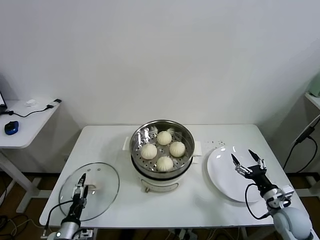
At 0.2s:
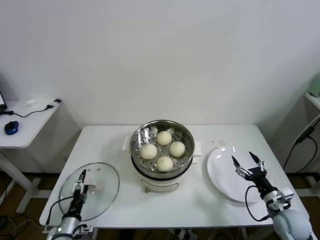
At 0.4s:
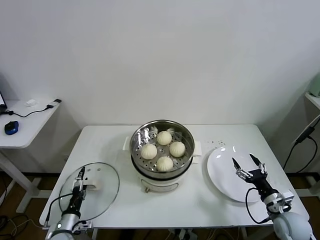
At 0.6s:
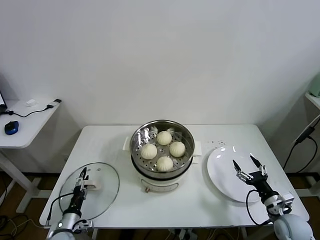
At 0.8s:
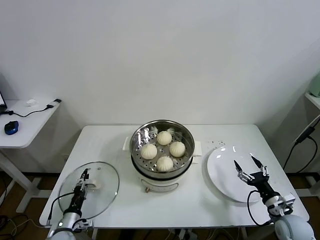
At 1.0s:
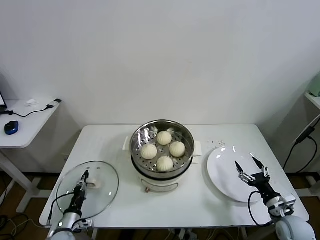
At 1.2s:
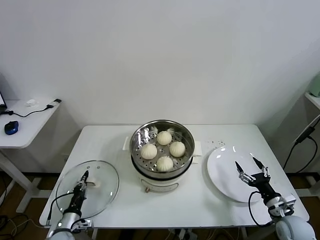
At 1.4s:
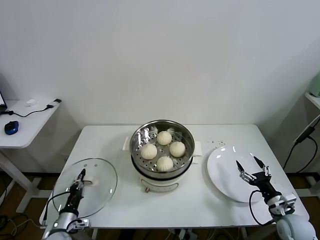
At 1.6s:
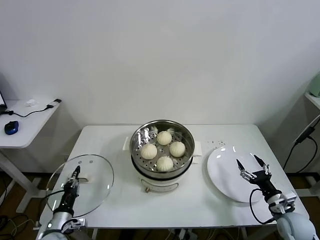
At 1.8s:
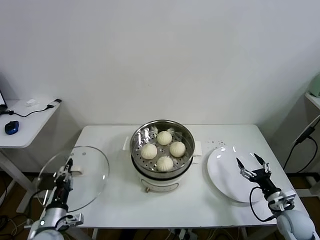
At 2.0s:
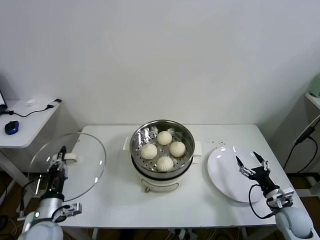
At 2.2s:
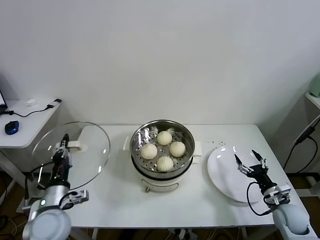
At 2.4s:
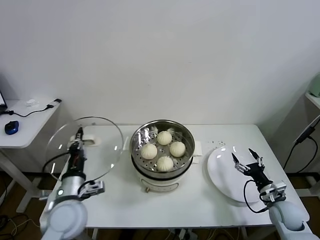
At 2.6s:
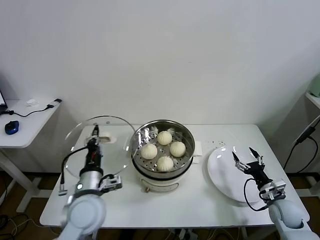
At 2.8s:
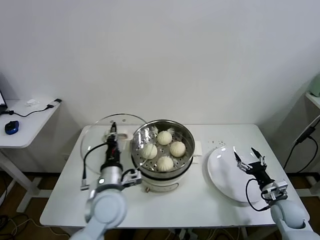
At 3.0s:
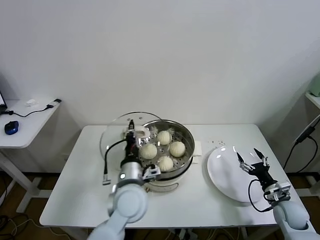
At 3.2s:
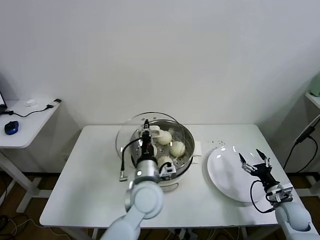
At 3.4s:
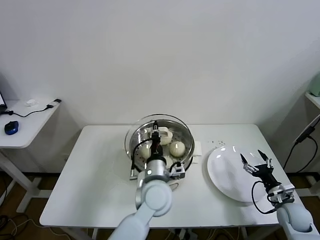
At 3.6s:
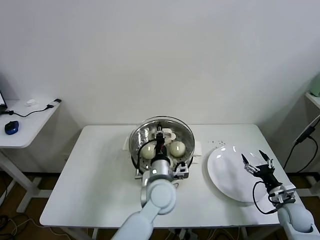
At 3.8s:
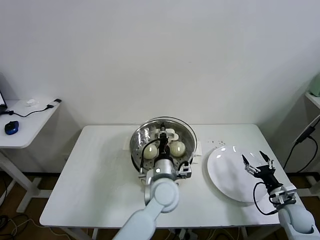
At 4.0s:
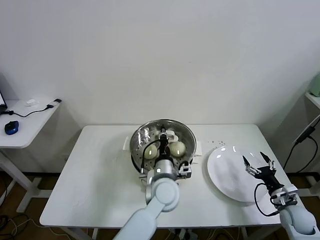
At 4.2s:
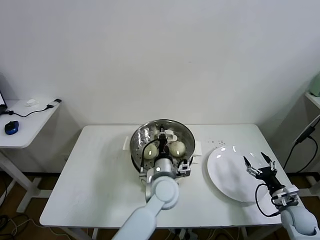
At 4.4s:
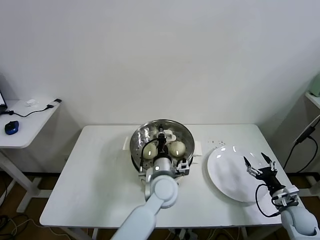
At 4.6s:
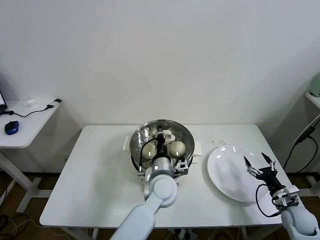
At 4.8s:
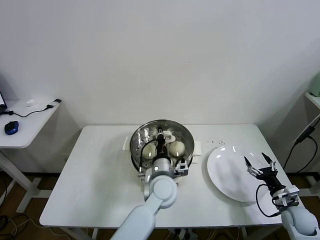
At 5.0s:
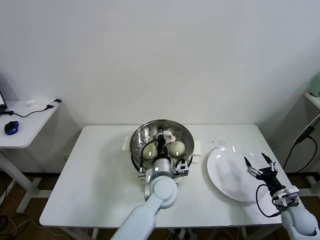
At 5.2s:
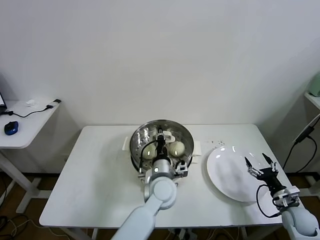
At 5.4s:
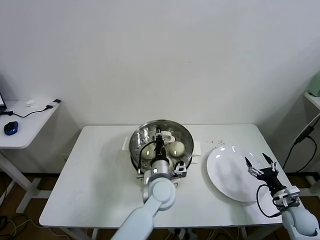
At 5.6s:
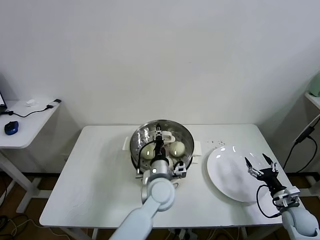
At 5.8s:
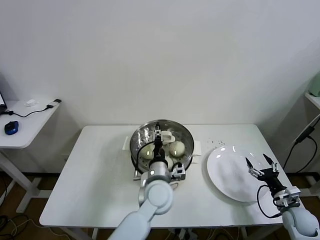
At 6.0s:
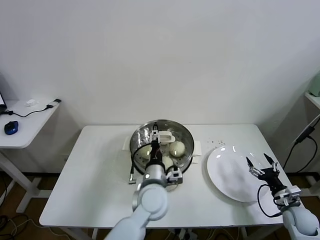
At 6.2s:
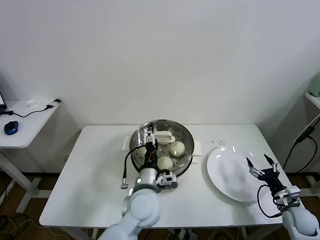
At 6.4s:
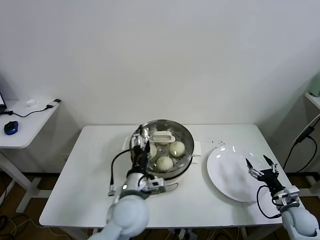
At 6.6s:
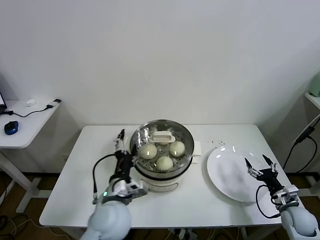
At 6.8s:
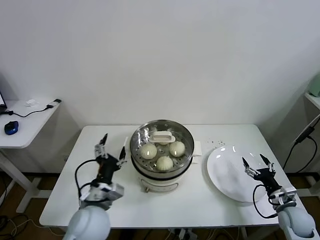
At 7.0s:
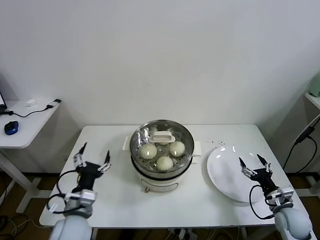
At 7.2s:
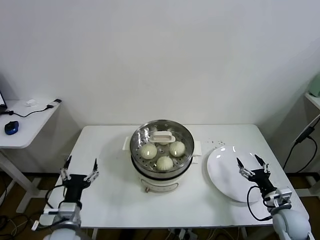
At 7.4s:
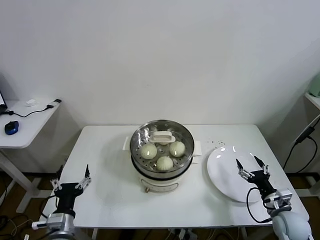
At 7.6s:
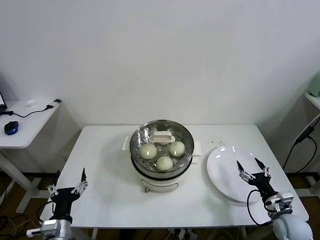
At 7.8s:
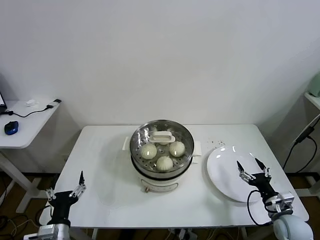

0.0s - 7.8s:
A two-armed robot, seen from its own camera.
Task of the whole recording: take steamed baozi put them in steamer.
Step, 1.2s - 6.0s: Place the pot lid on the steamer with left gripper.
0.0s - 1.6s: The left gripper closes up.
1.6s - 3.2s: The left gripper heads to the right and upward, covering roughly 35 cm.
3.2s - 4.6s: The left gripper travels to the right by about 5 cm.
4.6s - 6.2s: The left gripper goes approximately 5 cm backward, and opens.
6.2s - 7.8s: The right gripper moves to the left, roughly 5 cm; the left gripper travels to the left and backward by about 30 cm.

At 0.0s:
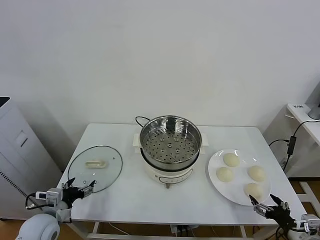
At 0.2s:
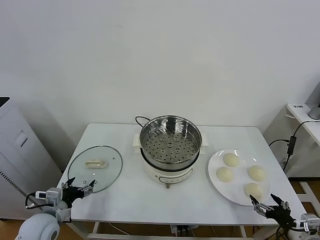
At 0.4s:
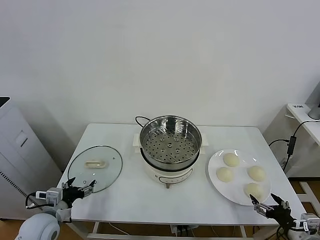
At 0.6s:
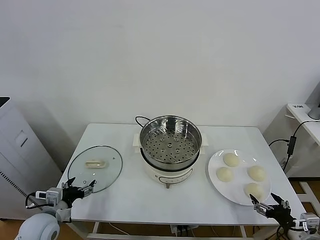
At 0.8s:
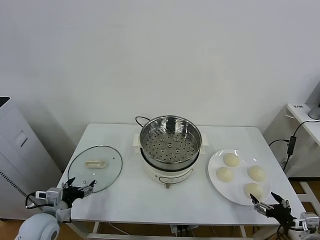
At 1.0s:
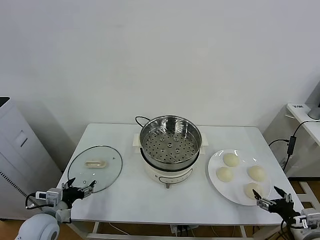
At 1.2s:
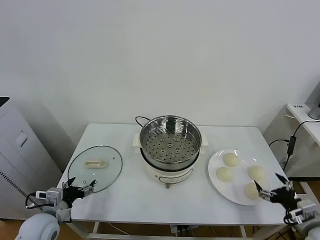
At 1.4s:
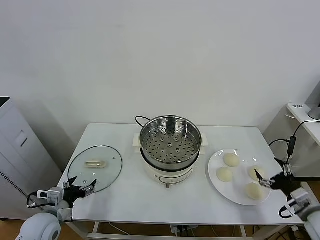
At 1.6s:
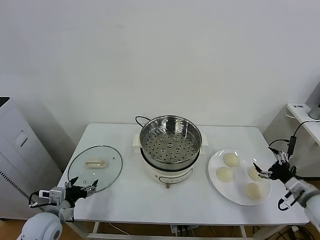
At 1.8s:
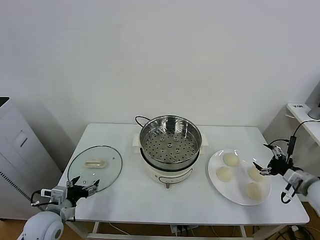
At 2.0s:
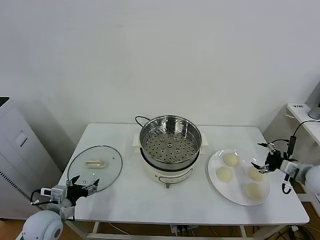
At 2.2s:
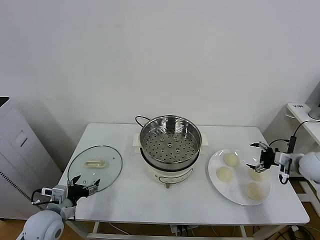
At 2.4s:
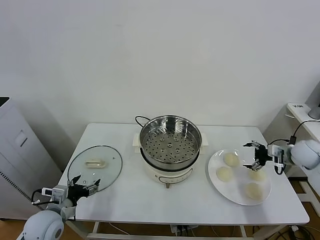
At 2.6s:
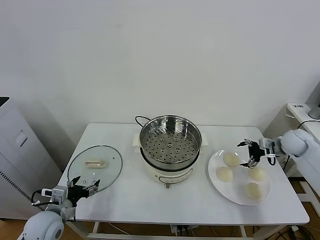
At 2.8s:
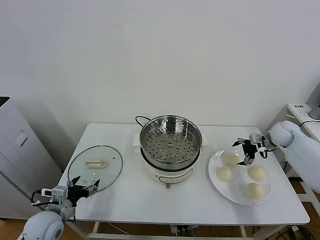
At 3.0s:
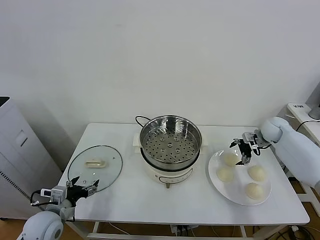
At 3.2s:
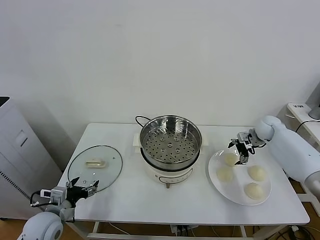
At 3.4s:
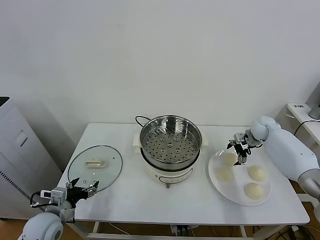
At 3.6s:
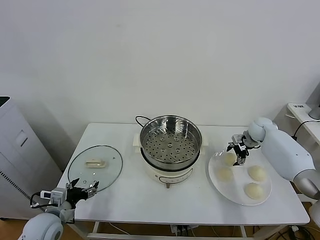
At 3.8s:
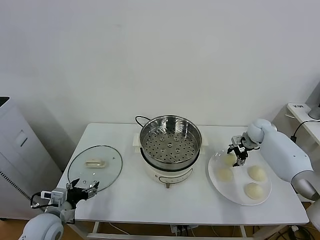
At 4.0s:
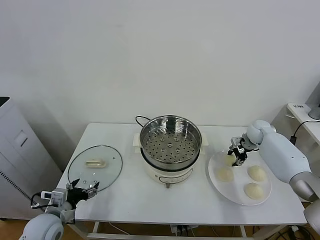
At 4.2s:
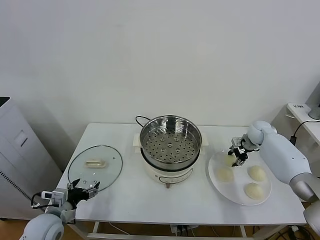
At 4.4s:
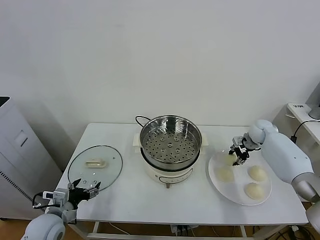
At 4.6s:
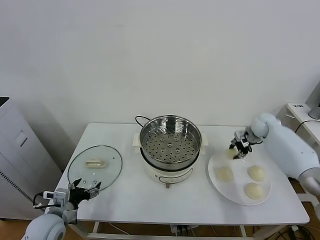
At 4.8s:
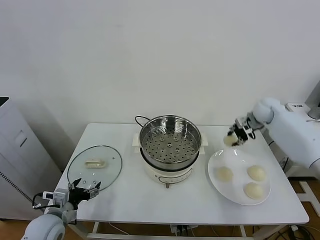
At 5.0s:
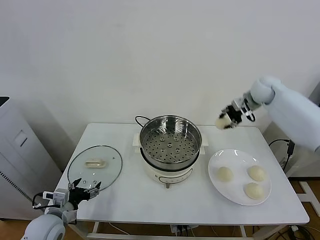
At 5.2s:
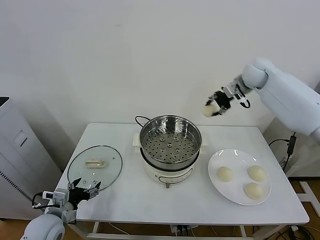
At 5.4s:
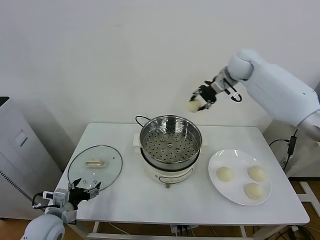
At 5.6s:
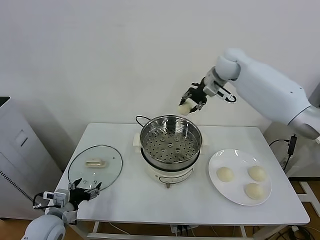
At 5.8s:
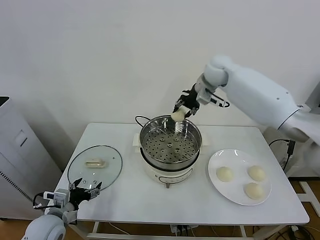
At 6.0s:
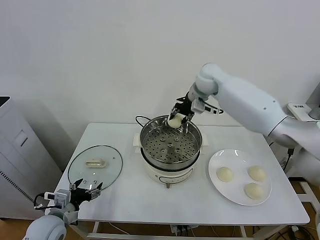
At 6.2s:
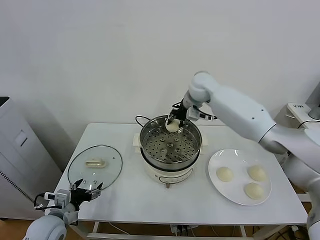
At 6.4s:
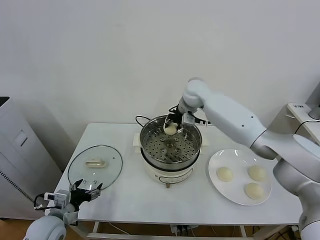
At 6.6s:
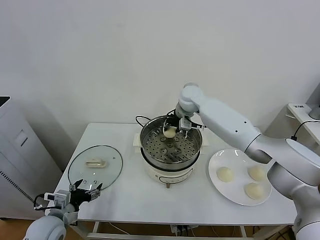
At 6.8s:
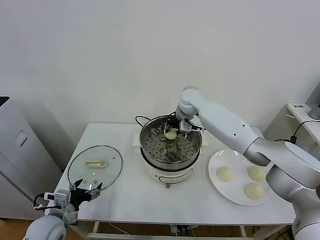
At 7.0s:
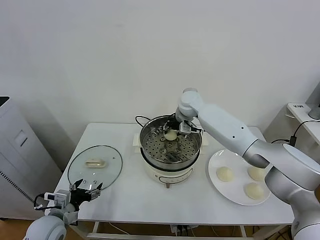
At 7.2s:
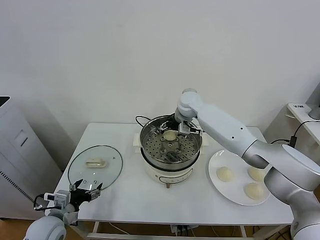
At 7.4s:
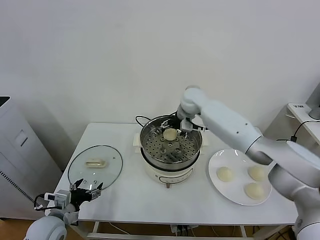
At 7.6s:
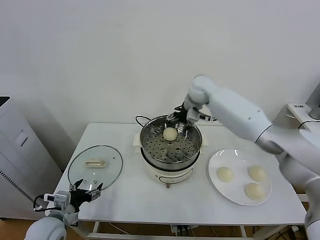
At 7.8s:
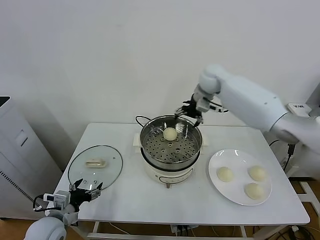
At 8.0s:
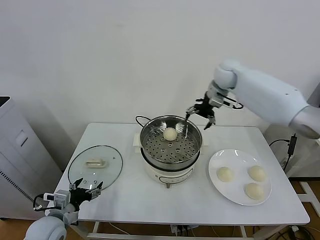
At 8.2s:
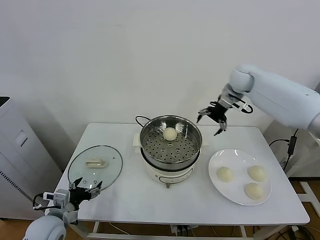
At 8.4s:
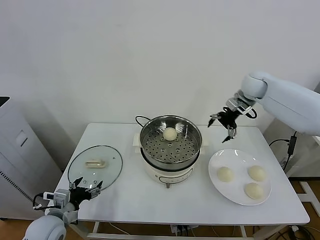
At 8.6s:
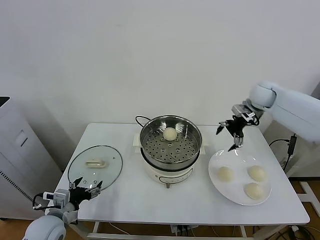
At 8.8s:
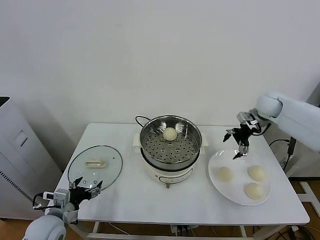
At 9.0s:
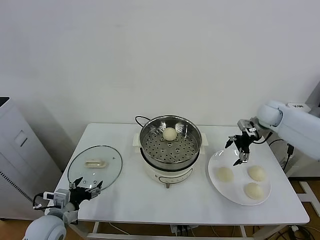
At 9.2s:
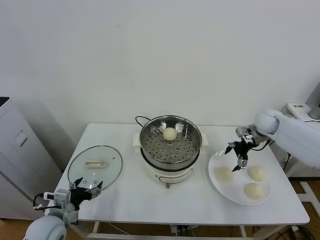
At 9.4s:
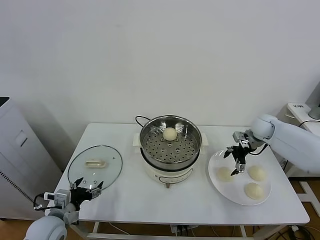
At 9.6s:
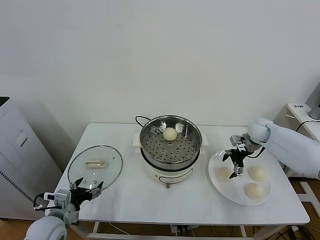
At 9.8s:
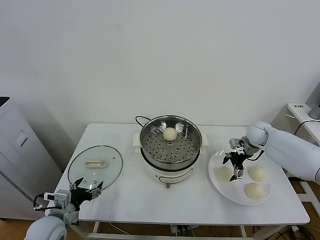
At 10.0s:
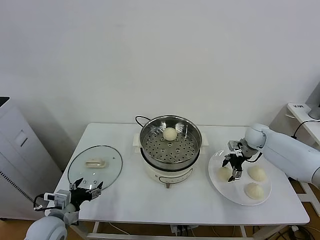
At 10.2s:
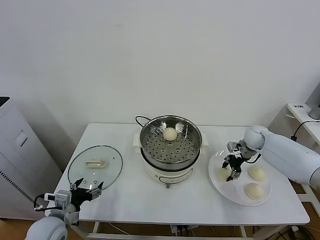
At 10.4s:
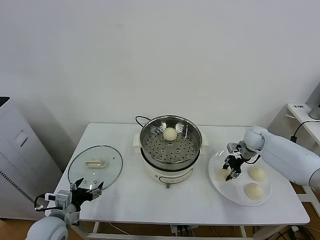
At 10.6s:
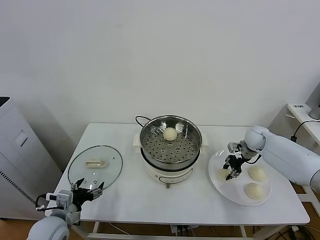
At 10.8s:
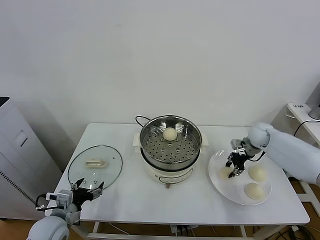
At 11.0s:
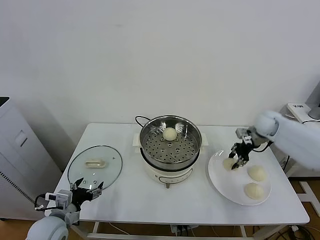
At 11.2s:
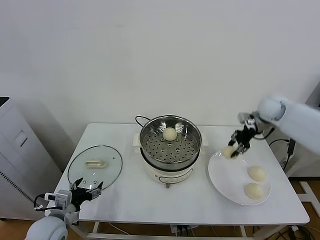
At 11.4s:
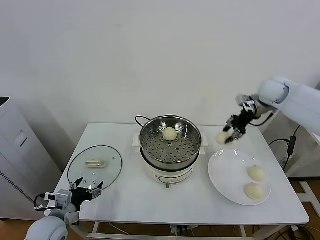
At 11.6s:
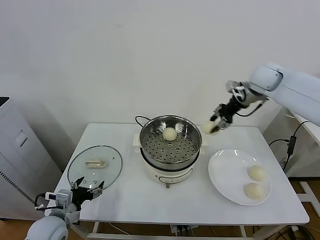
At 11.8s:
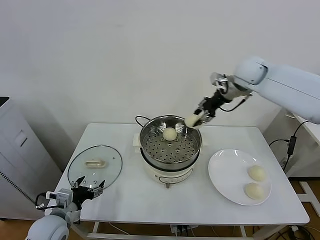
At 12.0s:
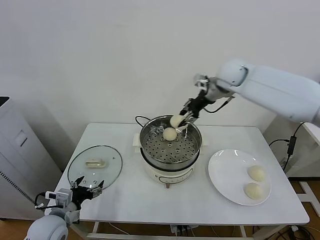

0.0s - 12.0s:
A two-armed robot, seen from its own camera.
Task of the whole recording: take steamed baozi put them in steamer.
Step, 0.0s - 4.2s: Grasp the baozi in the plate with right gripper.
Step, 4.4s - 7.4s: Place the baozi on the steamer with right gripper.
Step, 7.6s - 10.2s: Grasp the baozi in the plate with right gripper.
1.6s - 3.0s: The right gripper moves forward, about 30 cm.
3.0s - 4.4s: The right gripper closes its fingers.
4.4s - 6.0s: The right gripper heads to the left and upward, covering approximately 35 cm.
6.0s - 7.6s: The right gripper moves about 10 cm downward and comes back, and opens.
7.6s - 9.0s: The right gripper heads to the right and downward, covering about 25 cm.
9.0s - 10.4s: The right gripper is displaced downward by about 10 cm, and closes its fingers.
10.4s - 12.0s: The right gripper travels upward and to the left by approximately 30 cm.

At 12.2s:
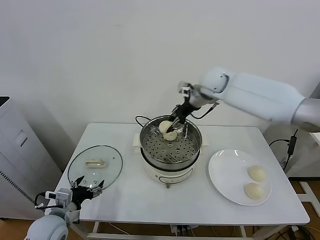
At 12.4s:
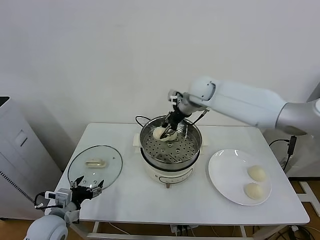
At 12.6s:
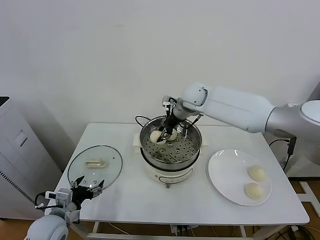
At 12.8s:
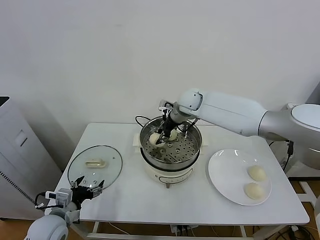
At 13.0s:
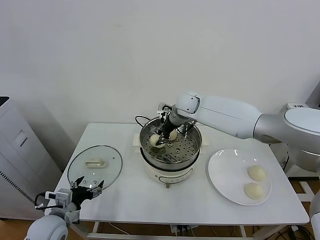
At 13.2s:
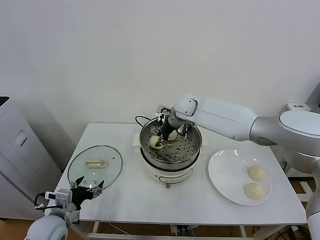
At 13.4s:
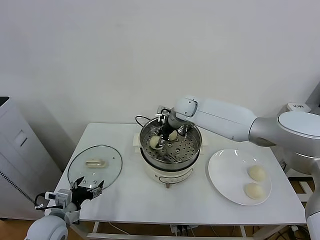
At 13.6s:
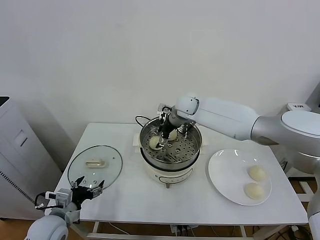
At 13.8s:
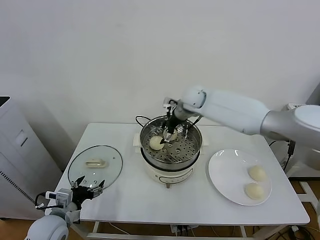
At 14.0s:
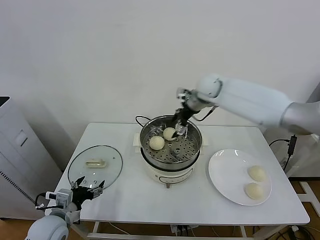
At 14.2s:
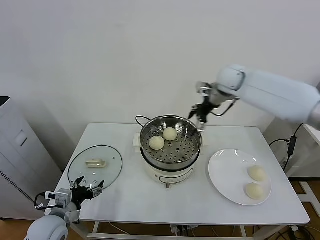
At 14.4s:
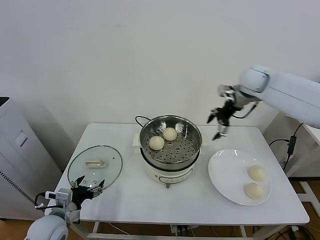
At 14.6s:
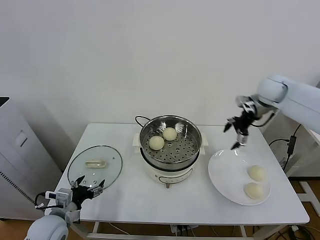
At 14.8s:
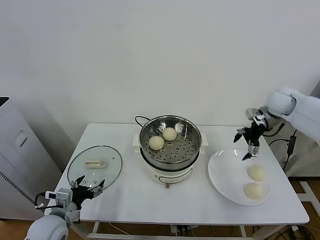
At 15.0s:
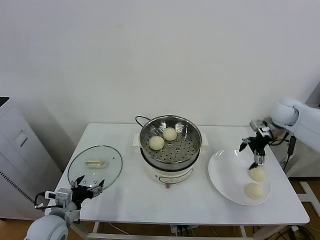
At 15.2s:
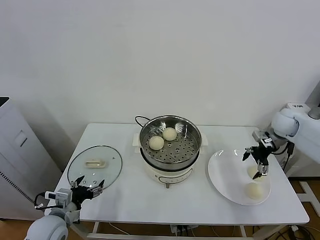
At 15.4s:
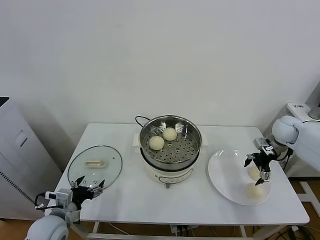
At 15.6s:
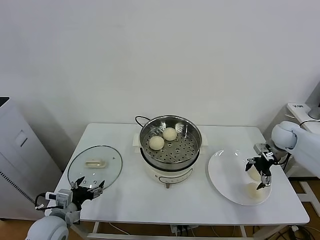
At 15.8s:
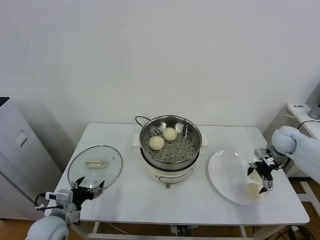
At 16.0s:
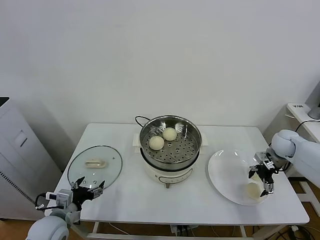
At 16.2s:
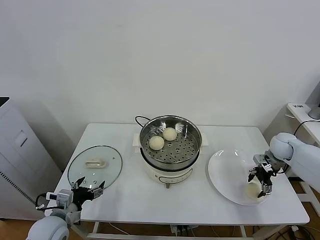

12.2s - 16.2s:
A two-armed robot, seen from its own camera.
Task of the whole recording: take steamed baozi put them in steamer.
12.2s - 13.6s: The right gripper shifts about 10 cm downward and to the left, and opens.
13.6s - 14.8s: The right gripper moves to the right, approximately 30 cm.
14.8s - 16.2s: The right gripper heads downward, covering about 15 cm, and closes.
